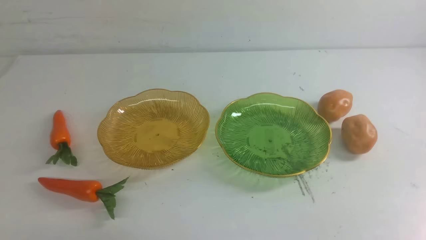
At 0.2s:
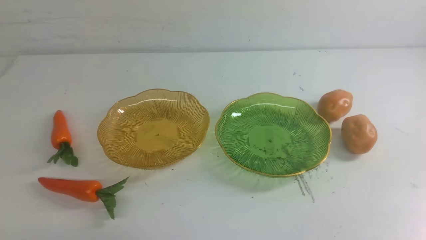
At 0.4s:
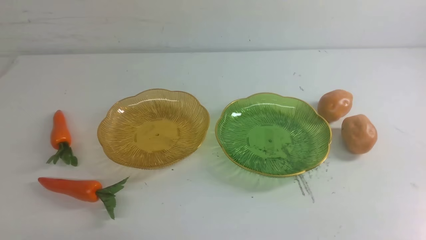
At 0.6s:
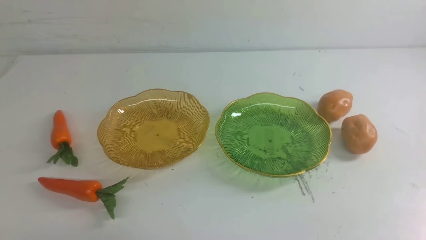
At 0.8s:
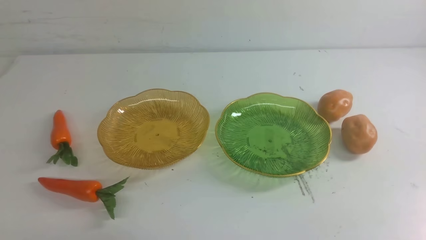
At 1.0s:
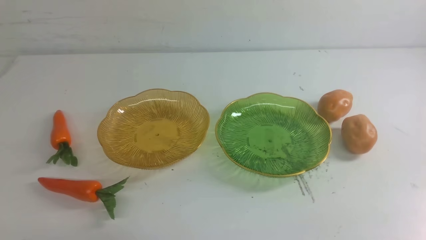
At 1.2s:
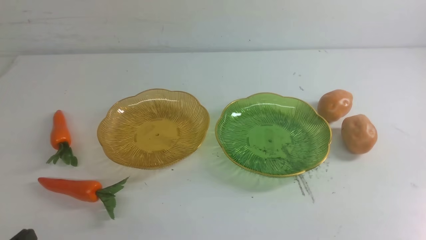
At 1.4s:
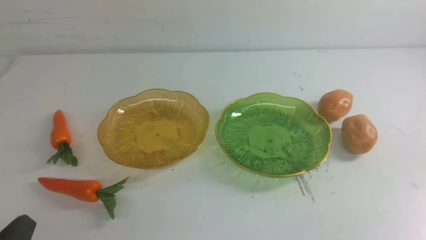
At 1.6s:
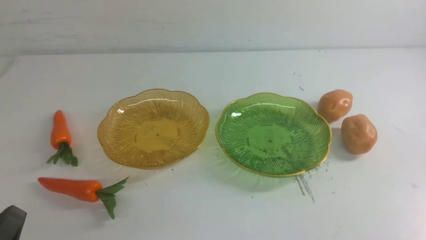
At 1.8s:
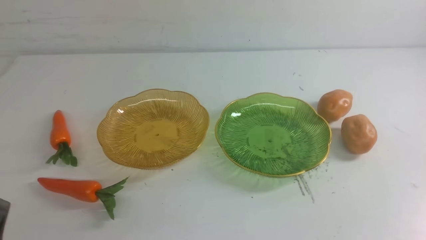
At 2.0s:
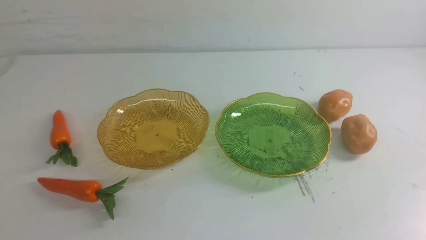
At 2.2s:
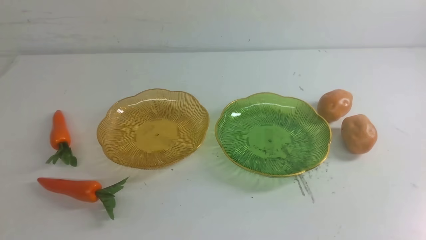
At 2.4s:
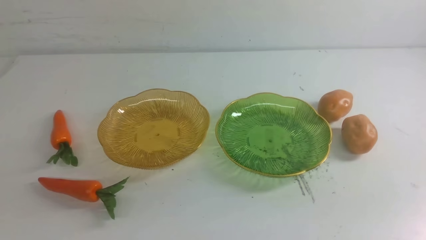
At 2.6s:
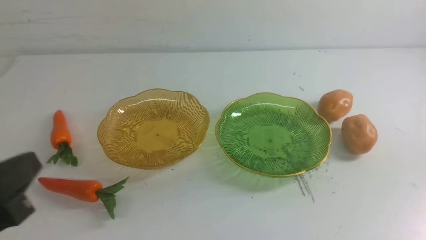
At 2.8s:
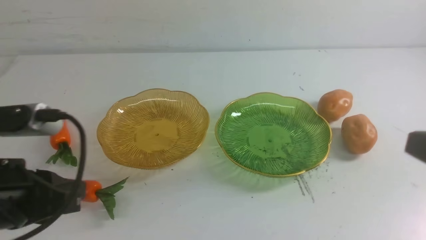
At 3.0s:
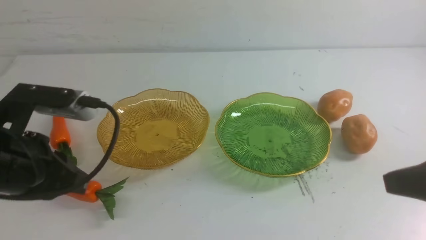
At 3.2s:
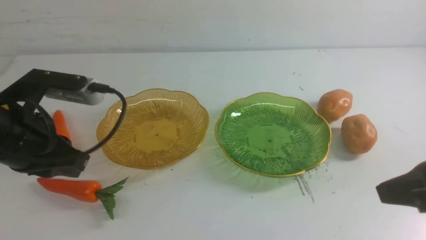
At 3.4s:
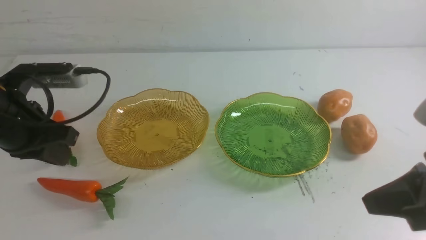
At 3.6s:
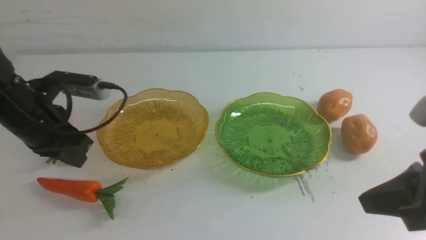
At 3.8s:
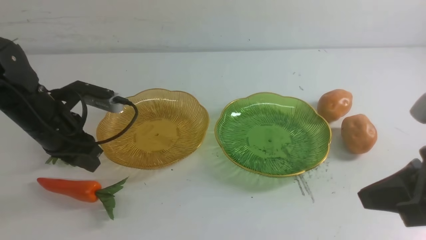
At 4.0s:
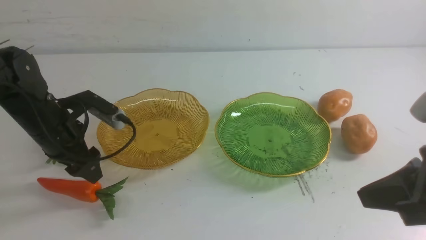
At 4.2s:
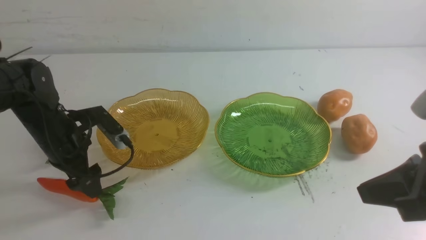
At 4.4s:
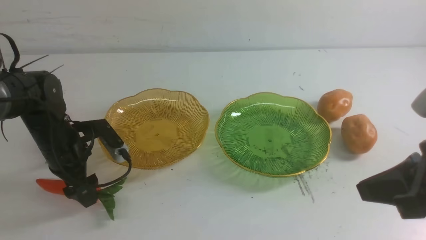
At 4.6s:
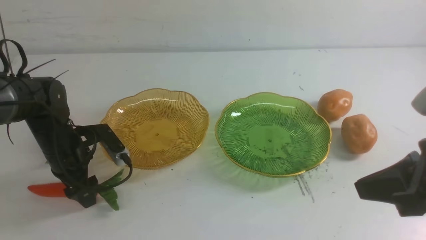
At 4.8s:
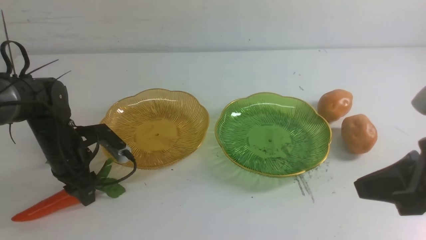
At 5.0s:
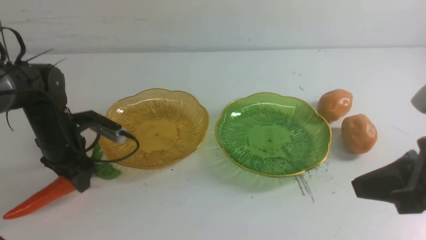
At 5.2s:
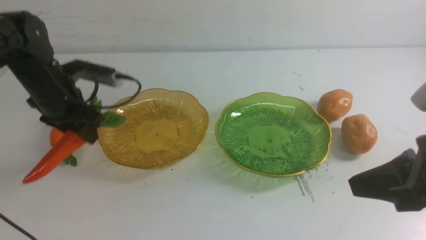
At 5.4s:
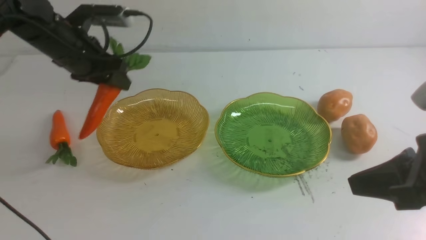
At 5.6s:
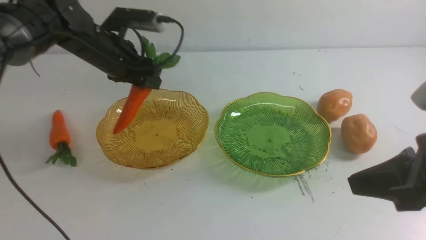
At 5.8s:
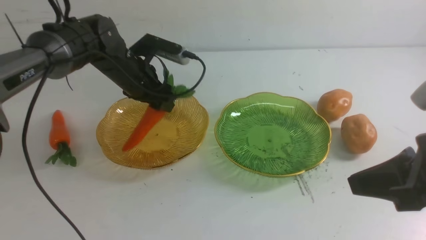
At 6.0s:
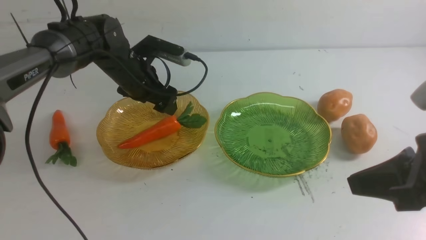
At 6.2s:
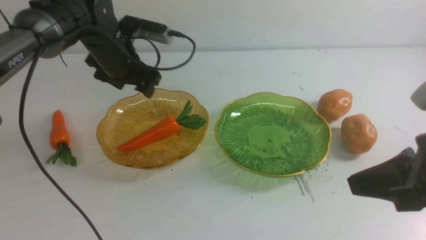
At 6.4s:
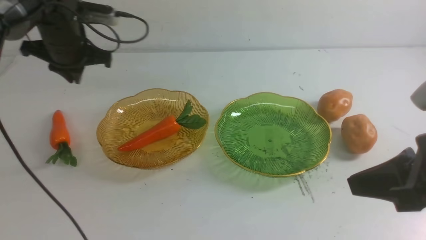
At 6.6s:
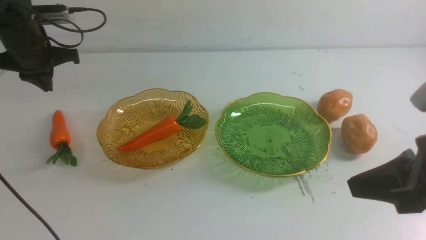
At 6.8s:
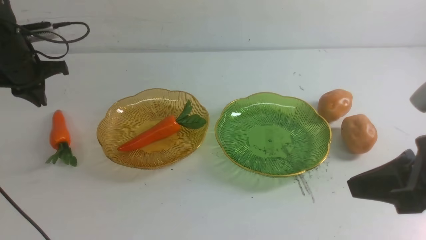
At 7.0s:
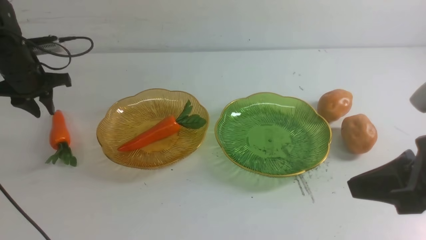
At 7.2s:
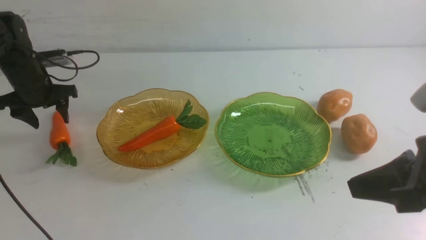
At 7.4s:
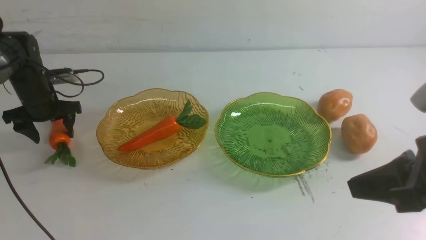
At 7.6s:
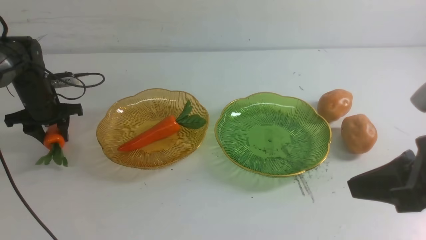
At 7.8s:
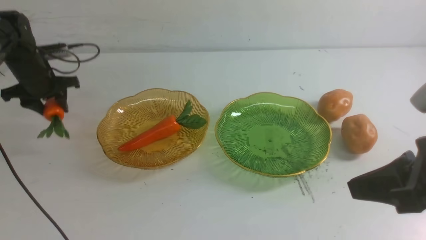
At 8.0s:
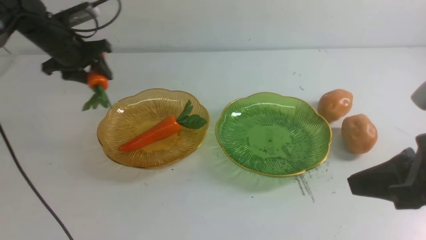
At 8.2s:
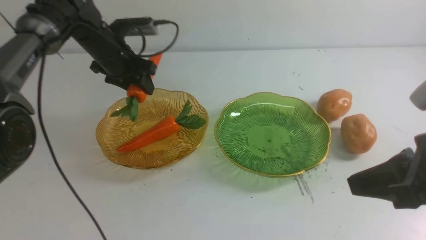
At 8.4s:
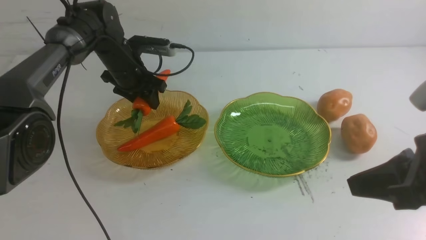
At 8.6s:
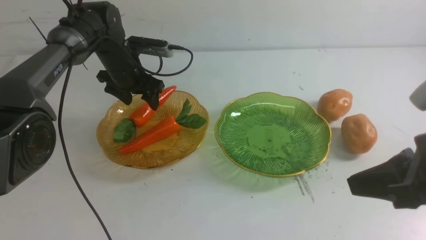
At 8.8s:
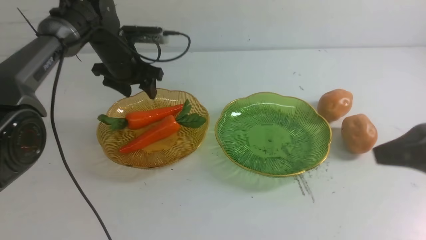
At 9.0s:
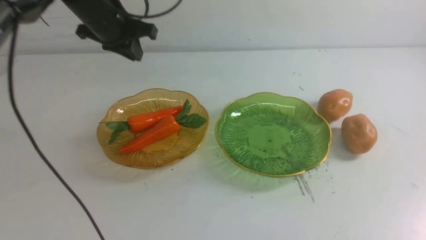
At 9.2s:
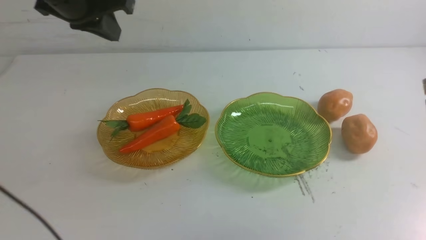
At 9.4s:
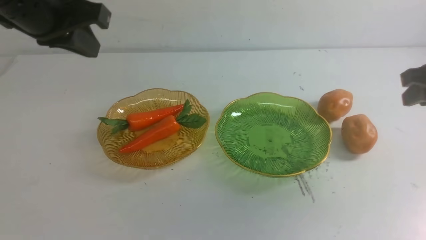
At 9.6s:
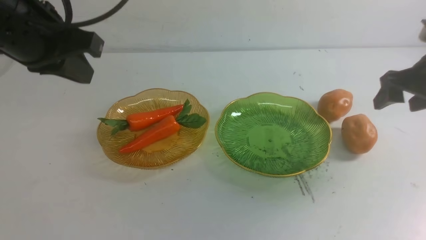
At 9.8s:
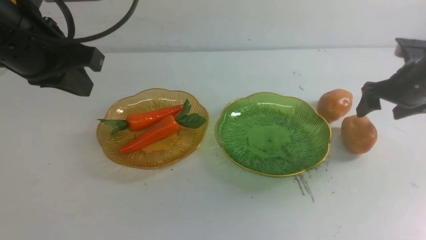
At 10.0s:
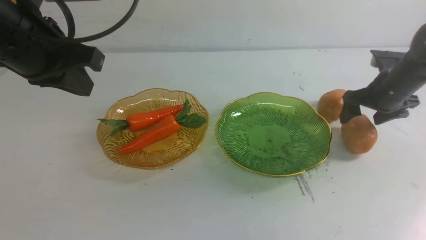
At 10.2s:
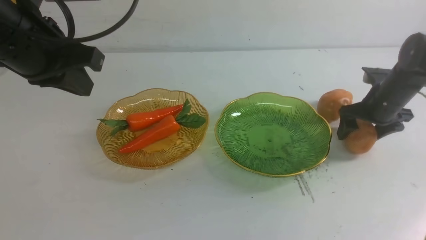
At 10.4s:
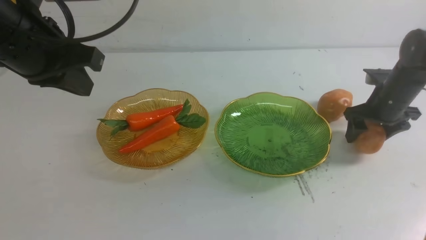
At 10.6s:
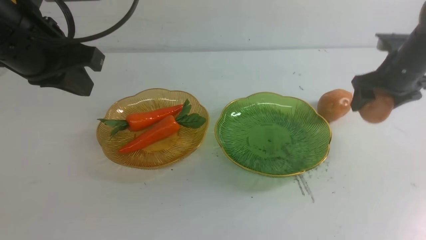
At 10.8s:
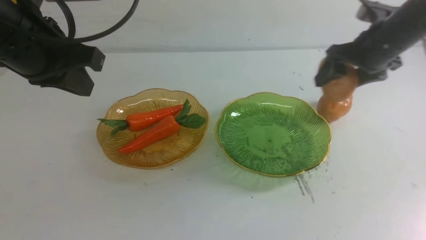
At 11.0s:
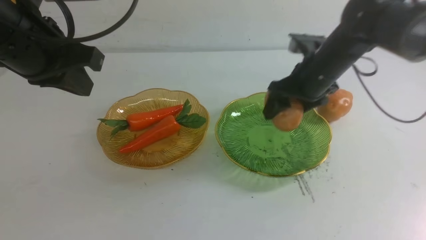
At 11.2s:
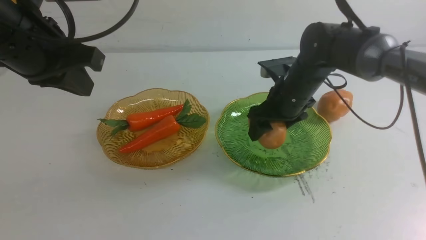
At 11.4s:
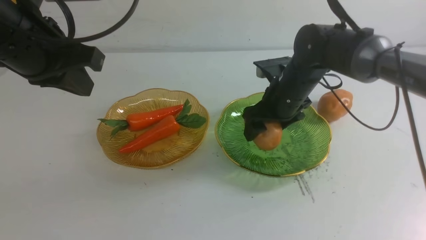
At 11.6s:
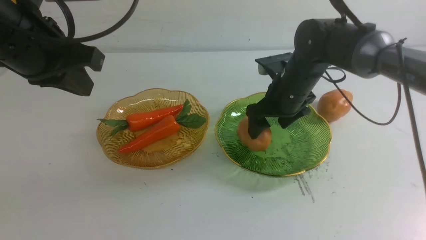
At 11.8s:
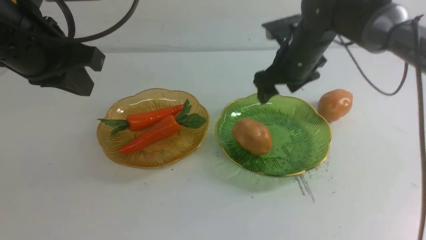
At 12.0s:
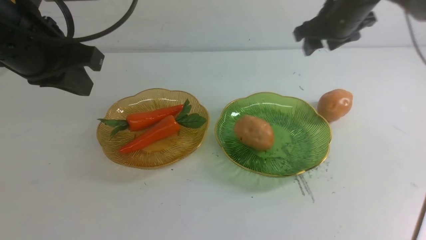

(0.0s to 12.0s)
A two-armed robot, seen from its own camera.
Step, 0.0s - 5.8s: use the left arm to grab a carrot and put it into the left plate.
Step, 6.0s - 8.6s: use the left arm to grab a carrot and put it into the left plate.
1.6s - 3.0s: The left gripper shifts about 20 cm forward and upward, while the right gripper moves upward and forward, some 15 cm.
3.0s - 4.4s: The left gripper is displaced forward and downward by some 20 cm, and opens its fingers.
4.4s - 6.0s: The left gripper shifts approximately 15 cm forward, to the right and upward, and closes and opens again.
6.0s - 7.6s: The left gripper moves to the left, approximately 20 cm, and closes and opens again.
7.6s - 9.0s: The right gripper heads forward and to the right, covering roughly 10 cm. Meanwhile the left gripper goes some 25 cm upward and to the right, and closes.
9.0s - 10.4s: The left gripper moves backward, about 15 cm, while the right gripper moves forward and downward, approximately 25 cm, and opens up.
10.4s - 12.0s: The right gripper moves upward and to the left, roughly 15 cm.

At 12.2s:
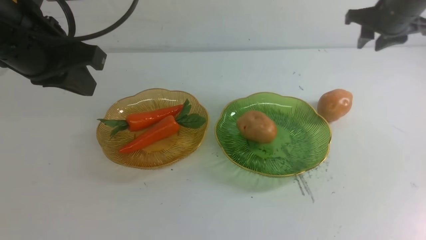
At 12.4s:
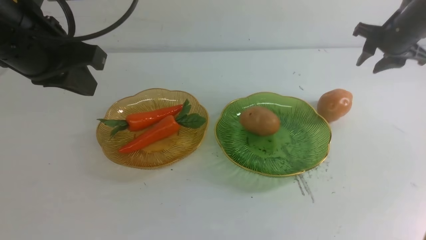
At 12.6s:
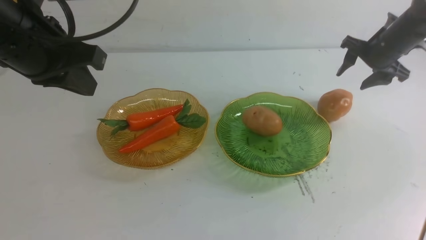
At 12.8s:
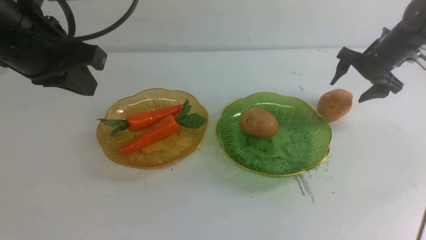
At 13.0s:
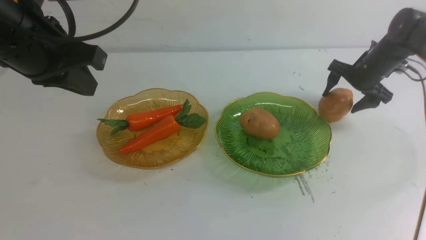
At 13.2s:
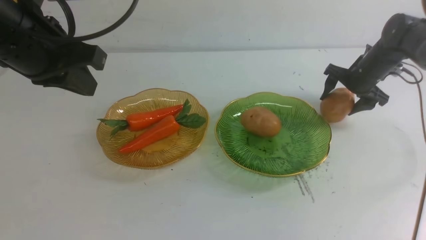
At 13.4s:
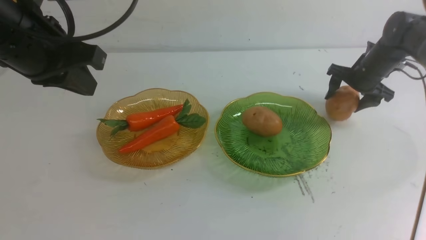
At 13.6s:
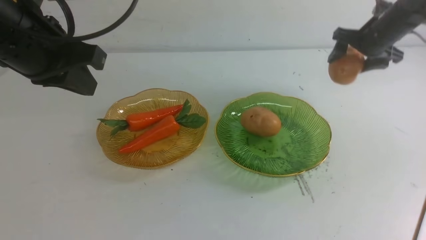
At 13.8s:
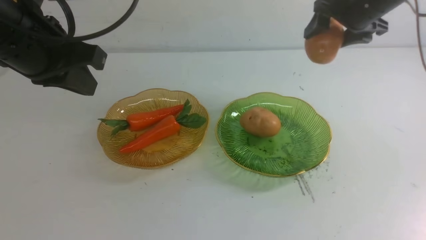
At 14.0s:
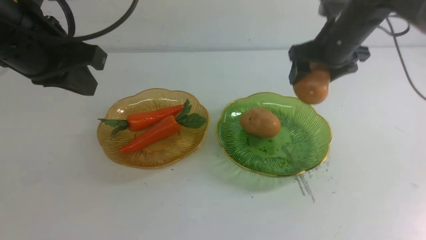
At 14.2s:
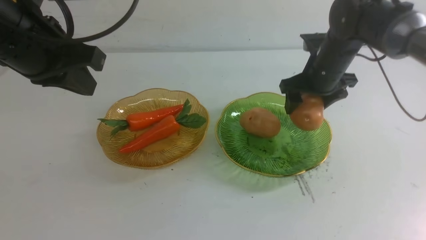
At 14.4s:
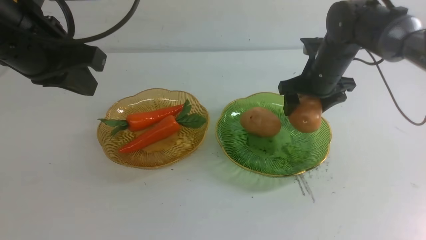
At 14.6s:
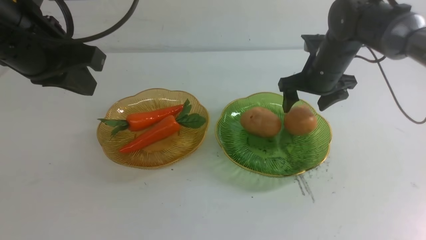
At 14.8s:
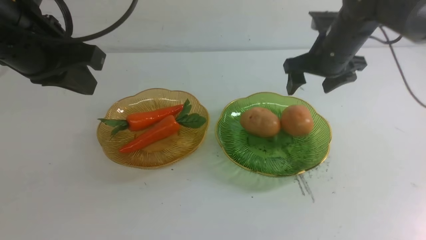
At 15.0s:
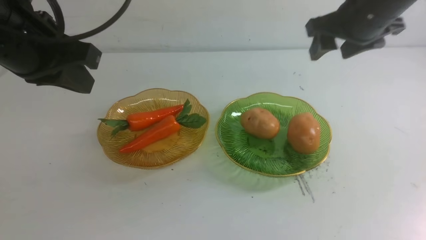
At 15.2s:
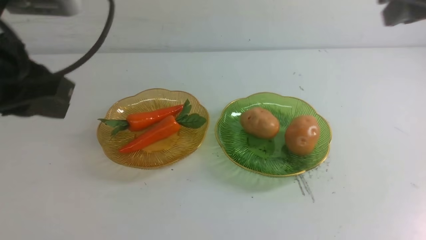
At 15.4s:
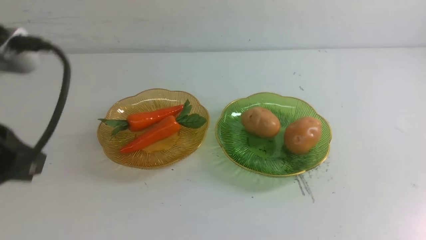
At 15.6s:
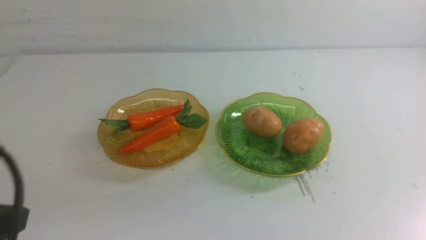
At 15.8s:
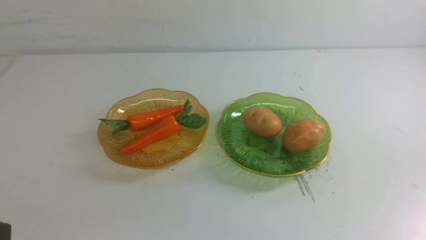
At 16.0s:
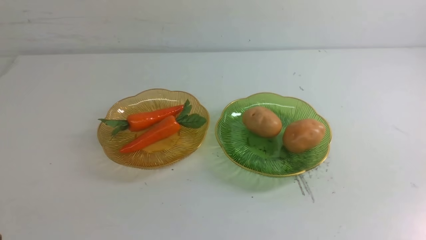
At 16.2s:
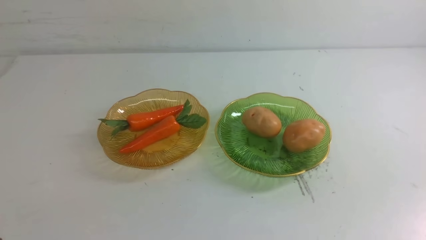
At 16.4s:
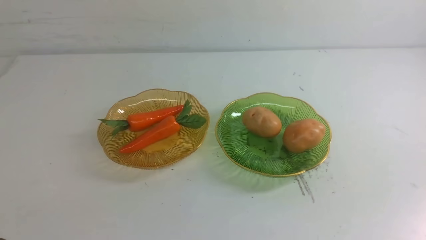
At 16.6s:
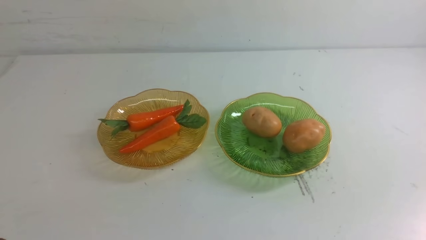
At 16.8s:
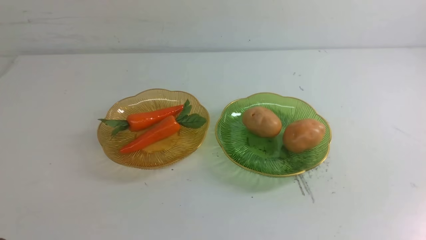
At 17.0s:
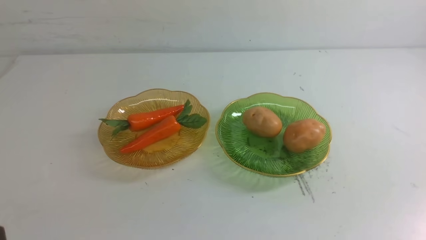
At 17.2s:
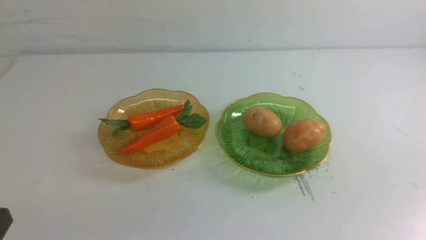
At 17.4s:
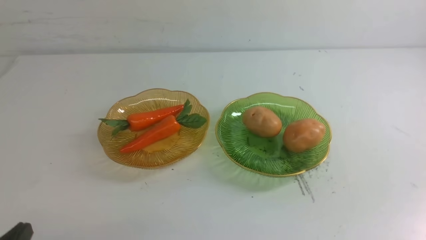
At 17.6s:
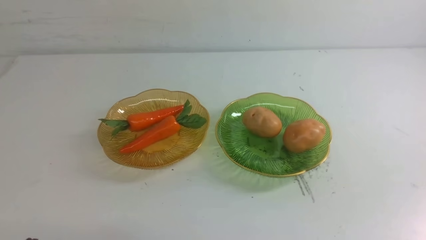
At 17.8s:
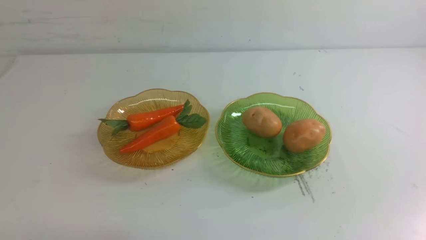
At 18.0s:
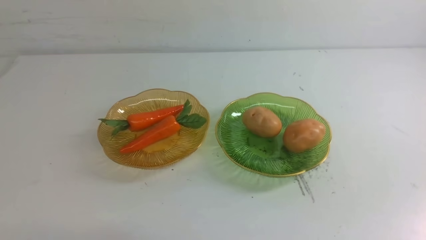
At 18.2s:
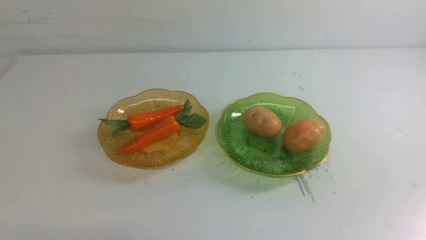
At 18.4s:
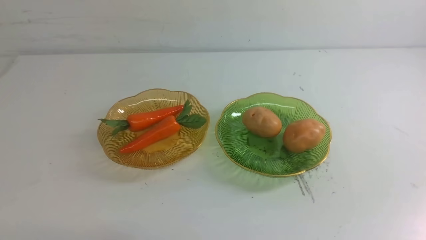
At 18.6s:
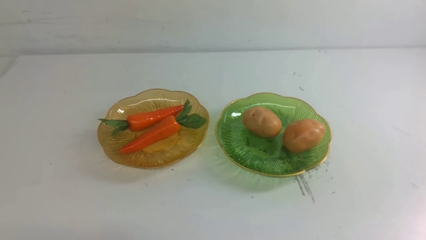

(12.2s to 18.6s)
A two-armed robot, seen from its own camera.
Step, 12.2s - 14.6s: Grab a potato with your right arm and put it on the right plate.
12.2s - 13.8s: The right gripper goes approximately 5 cm to the left, moves about 10 cm downward and comes back, and opens.
13.8s - 15.4s: The right gripper heads backward and upward, covering about 35 cm, and closes; the left gripper goes some 15 cm backward.
15.4s - 17.0s: The left gripper goes roughly 15 cm backward and downward.
